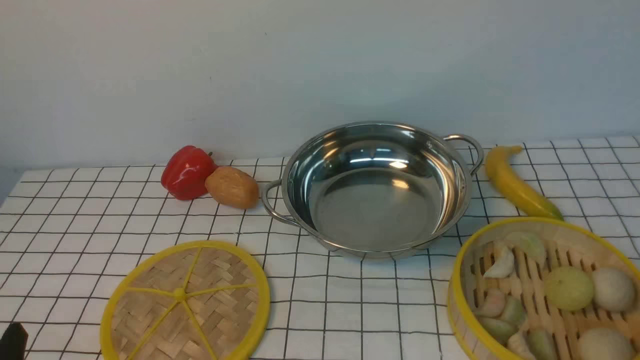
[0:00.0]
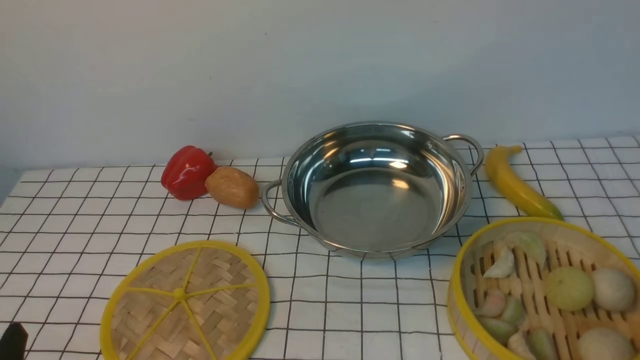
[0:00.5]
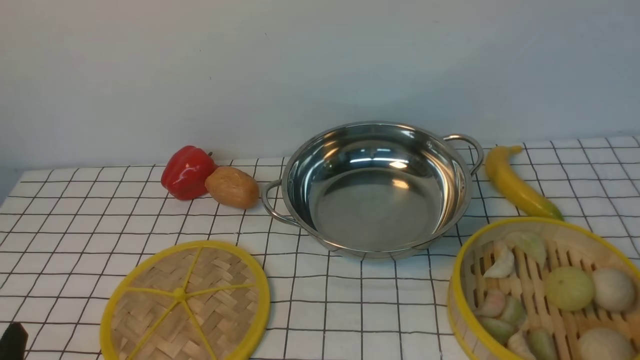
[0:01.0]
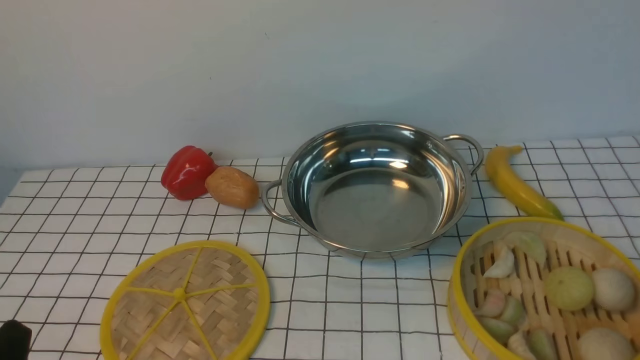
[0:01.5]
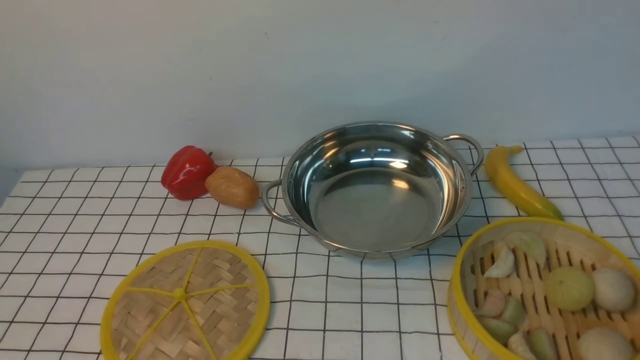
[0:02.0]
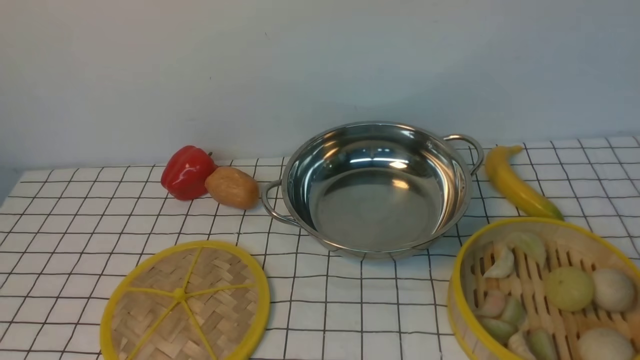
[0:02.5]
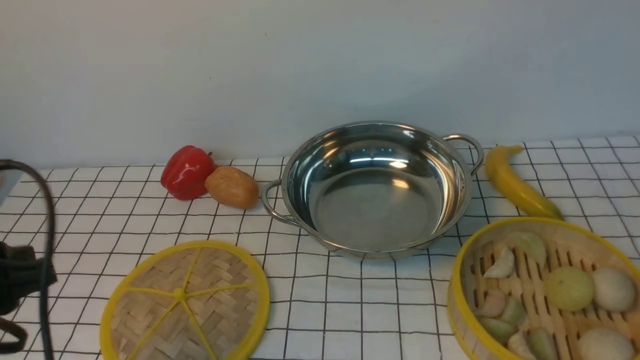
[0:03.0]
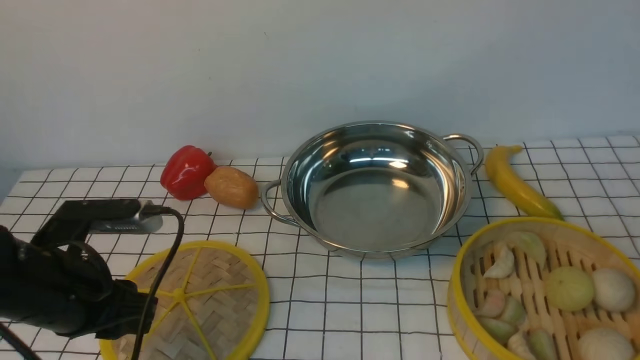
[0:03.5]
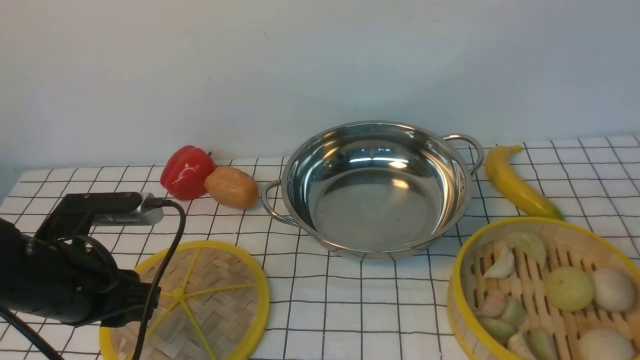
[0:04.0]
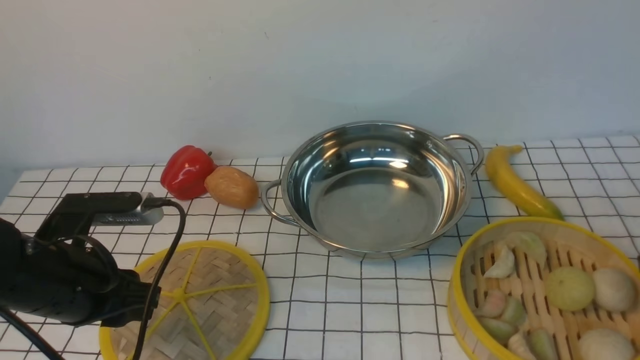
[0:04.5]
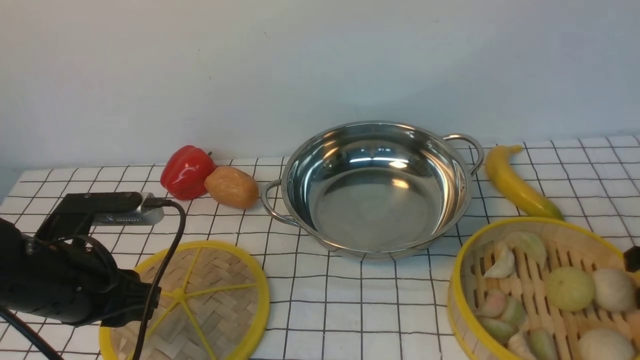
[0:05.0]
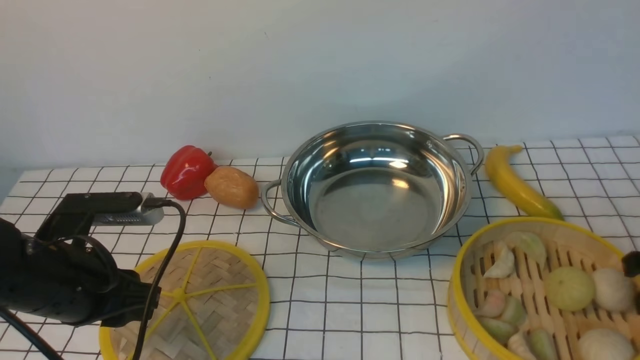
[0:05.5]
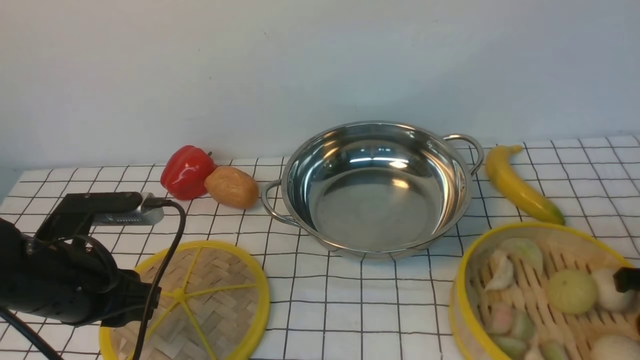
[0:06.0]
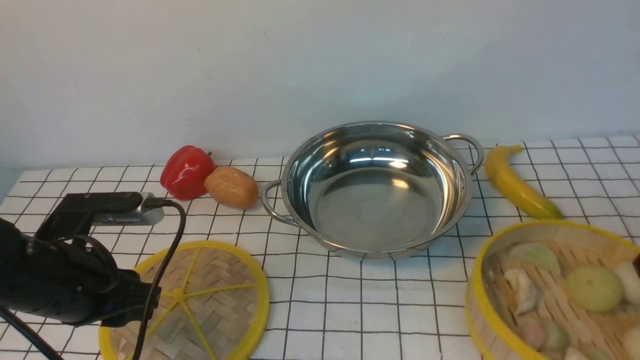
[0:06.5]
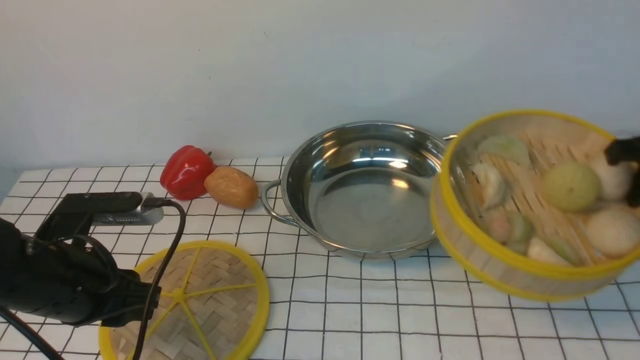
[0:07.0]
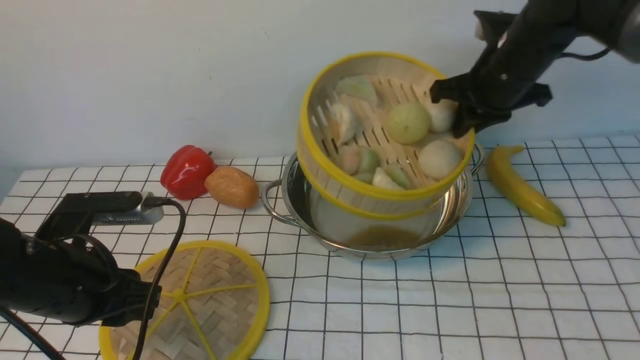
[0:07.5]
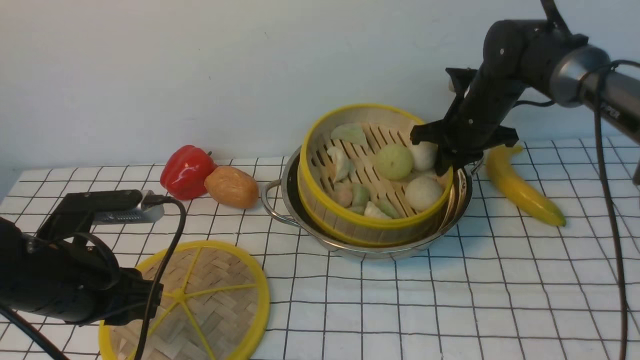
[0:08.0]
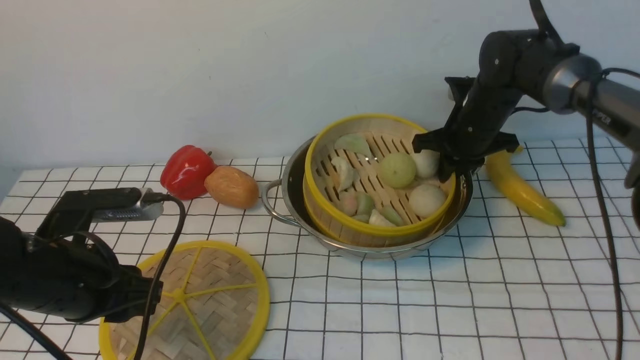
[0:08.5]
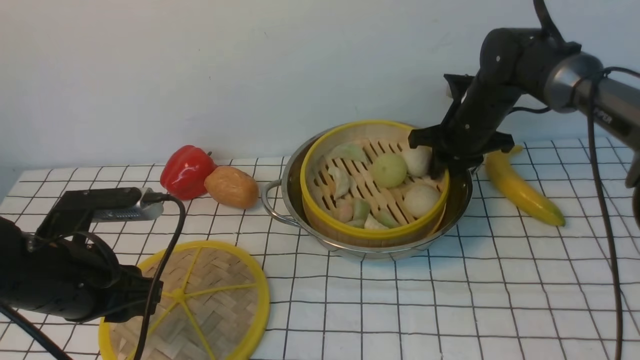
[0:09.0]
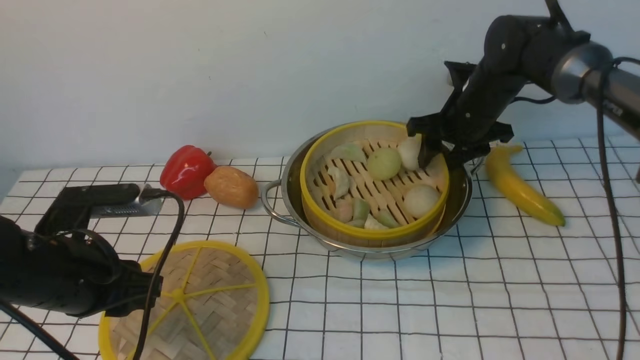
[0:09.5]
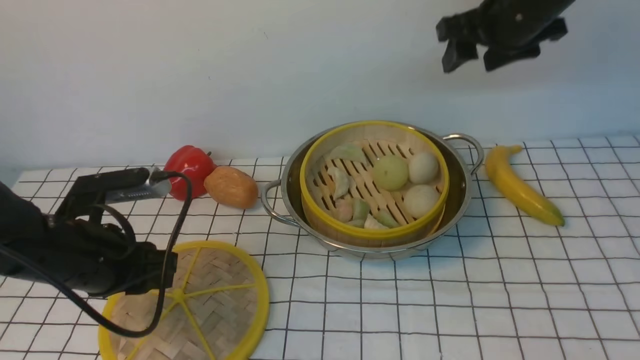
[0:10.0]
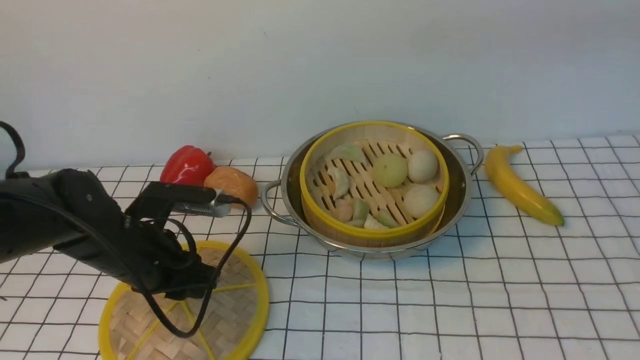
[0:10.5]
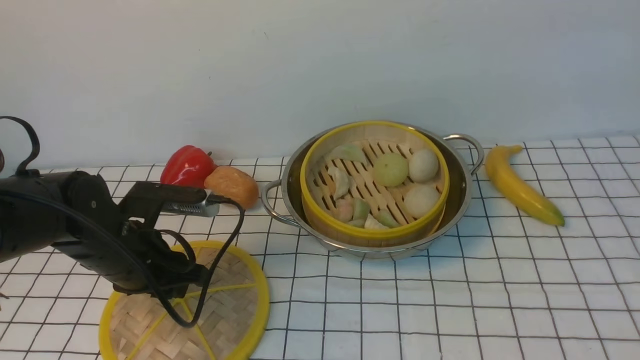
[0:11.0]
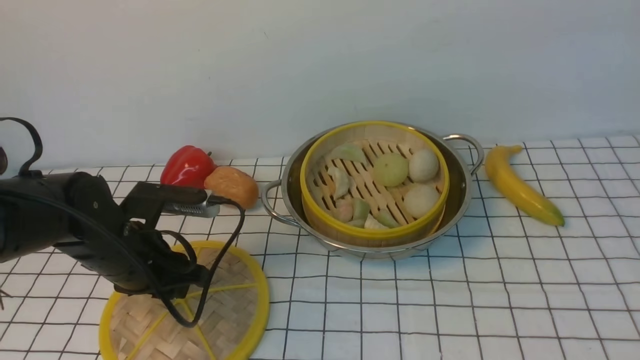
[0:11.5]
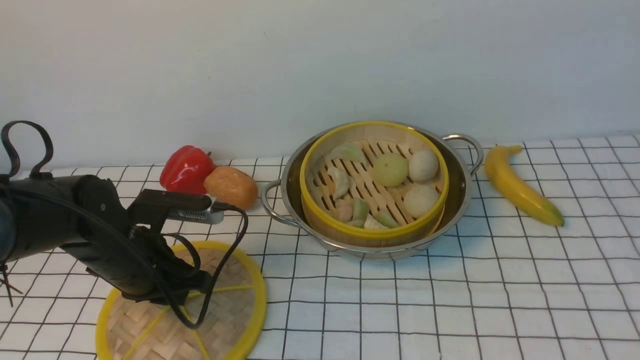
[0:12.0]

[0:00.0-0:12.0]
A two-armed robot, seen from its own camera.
Task of the whole recording: place the steamer in the pot on the white tablecloth, and put the lid on the steamer.
Step, 0:00.0 to 0:06.5: use the right arm to lift the steamer closest to it.
Step, 0:07.0 to 0:09.5: use the right arm to put the steamer into the iron steamer pot in the middle.
0:02.0 to 0:04.0: The left gripper is displaced forward by approximately 20 cm.
0:04.0 to 0:06.0: The right gripper moves downward, roughly 10 cm.
0:06.0 to 0:08.0: The right gripper travels forward and to the left by roughly 30 cm.
0:08.0 to 0:10.0: The right gripper is displaced upward by about 20 cm, and opens its fingers.
0:10.0 to 0:12.0: The left gripper changes place by about 5 cm, and closes up; the right gripper goes roughly 30 cm backward and upward.

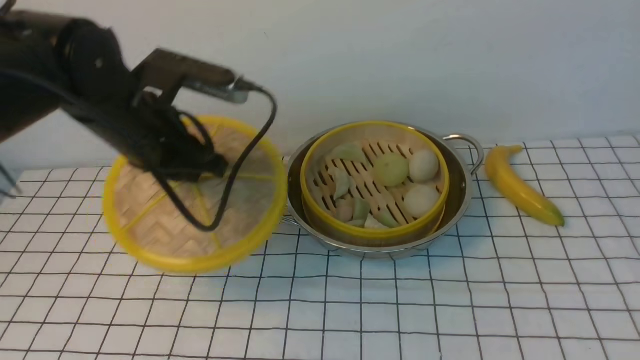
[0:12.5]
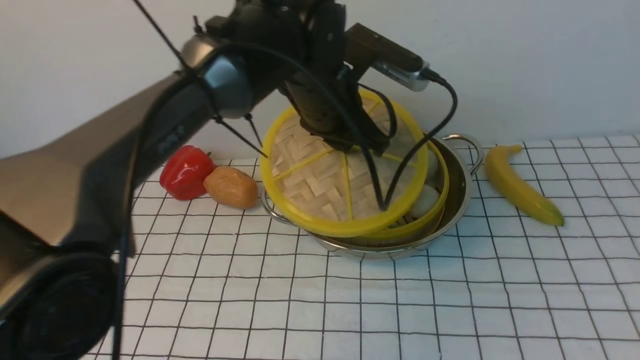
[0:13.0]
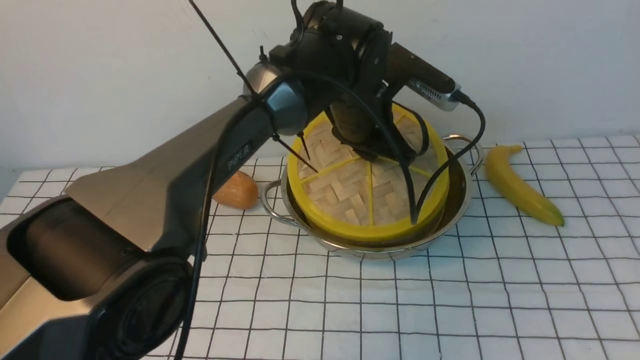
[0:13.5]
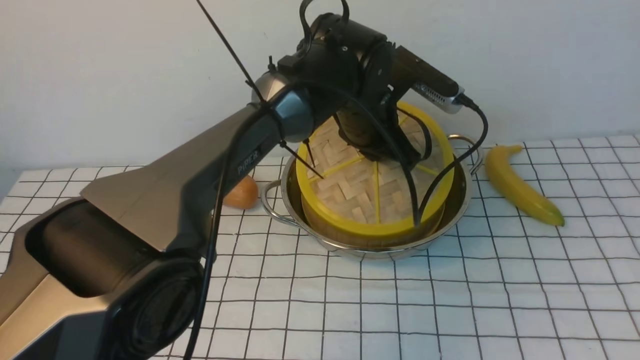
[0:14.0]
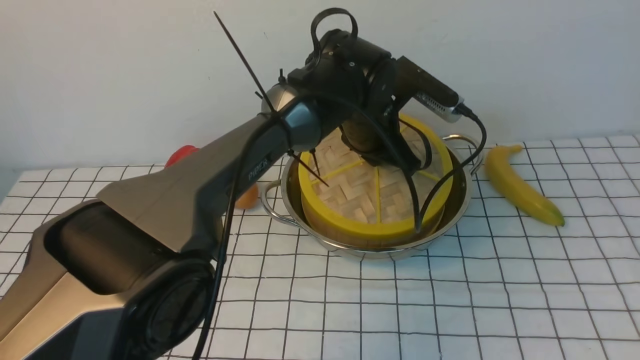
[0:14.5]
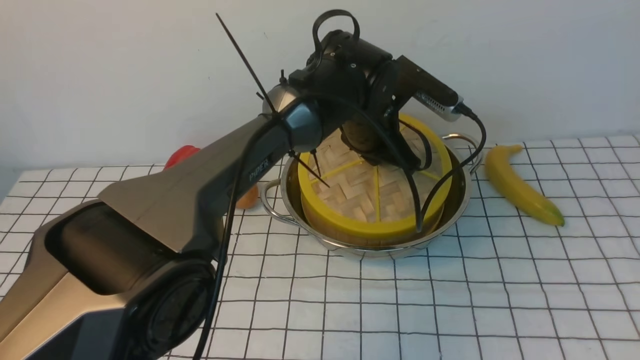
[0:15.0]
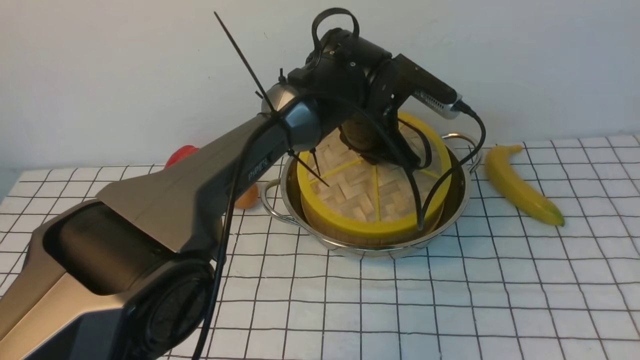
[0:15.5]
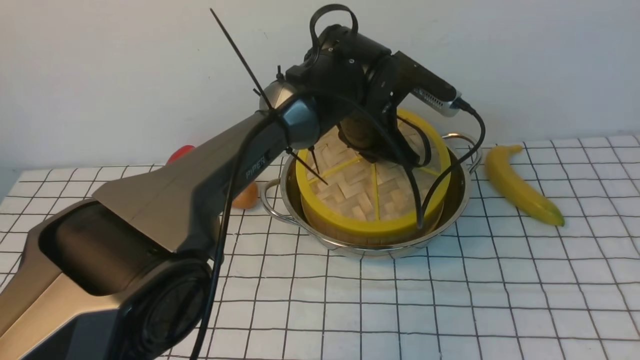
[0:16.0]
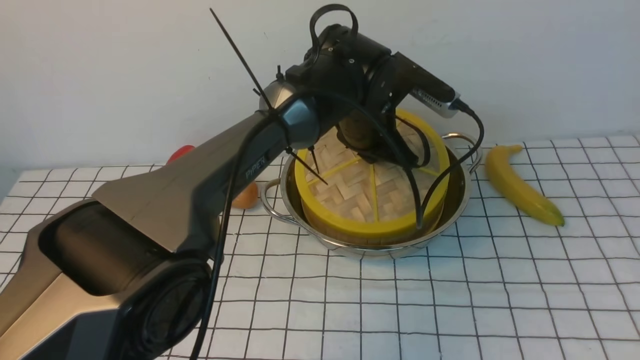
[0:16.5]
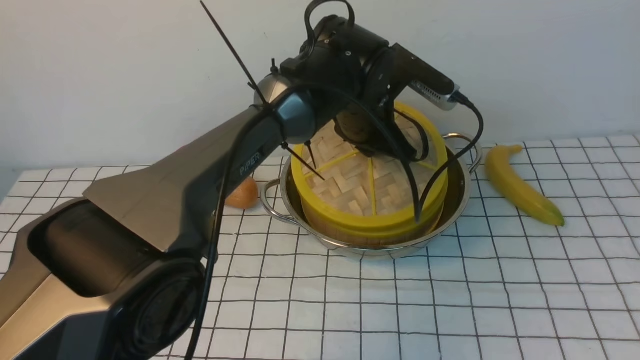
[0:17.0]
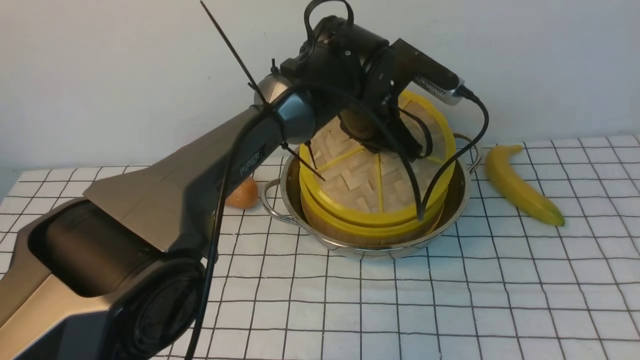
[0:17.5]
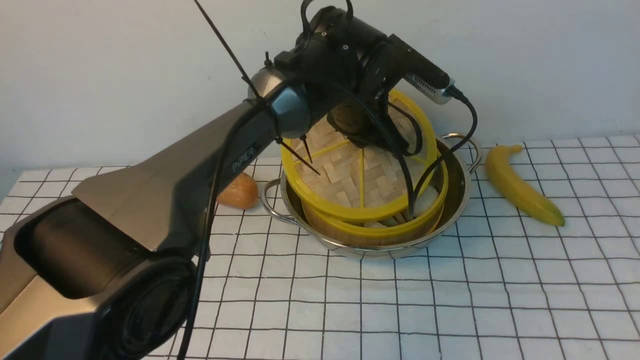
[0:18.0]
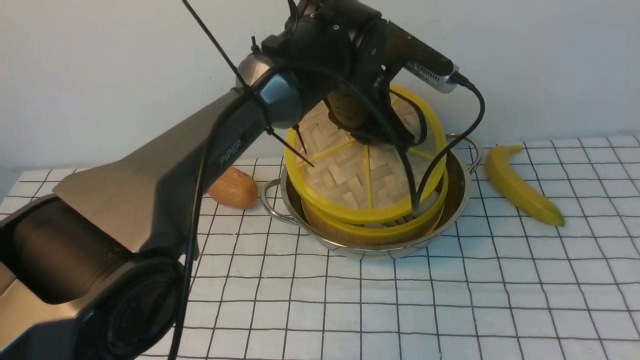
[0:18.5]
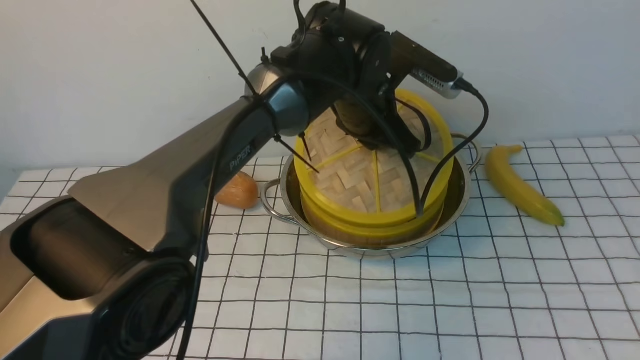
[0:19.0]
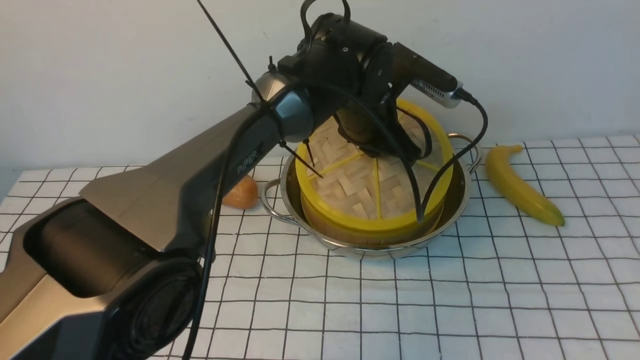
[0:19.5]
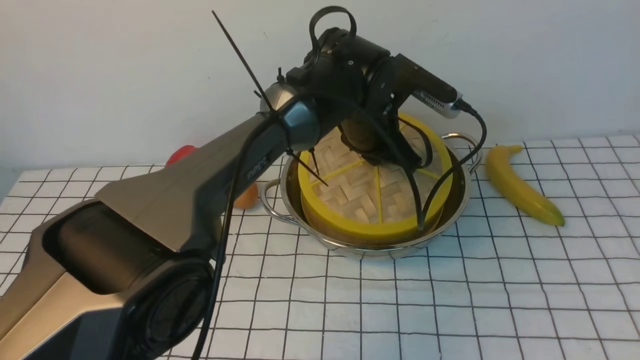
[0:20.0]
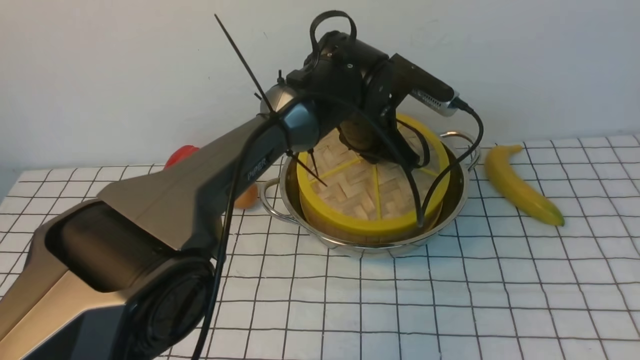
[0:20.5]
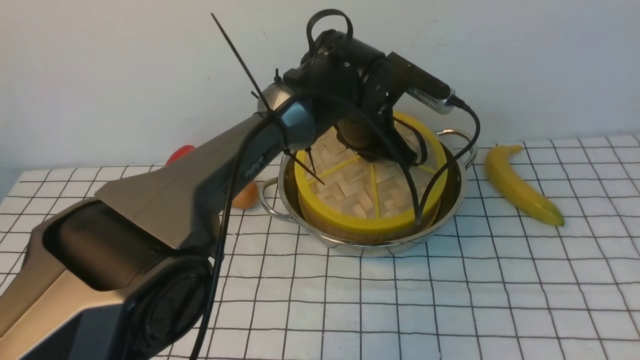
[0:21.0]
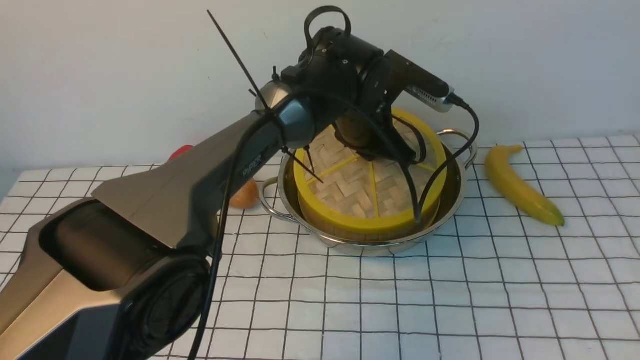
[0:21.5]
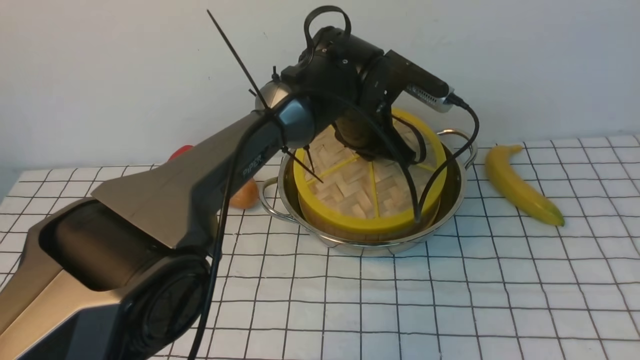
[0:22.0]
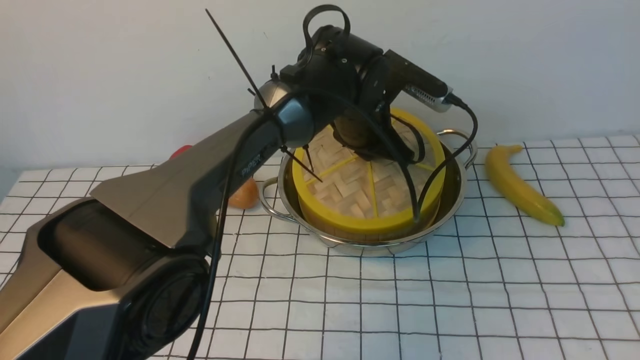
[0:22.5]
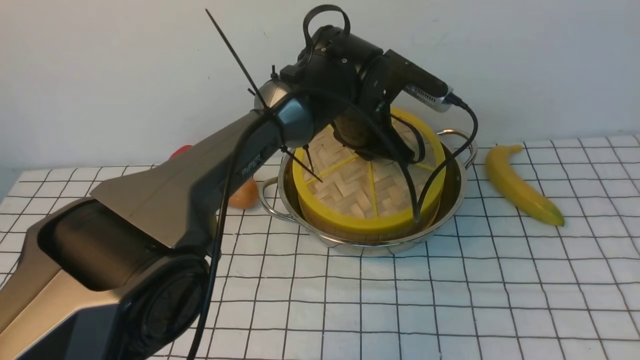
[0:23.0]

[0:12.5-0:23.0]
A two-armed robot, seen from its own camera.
Task of the whole recording: place the steamer in the pot on the white tablecloth, and put the lid on the steamer.
0:12.5 to 0:14.5: The left gripper shifts about 20 cm to the right and forward.
0:14.5 to 0:16.5: Both grippers stay put.
0:16.5 to 0:21.0: The grippers stay close to where they were, moving slightly.
0:21.0 to 0:23.0: Both grippers stay about where they are.
